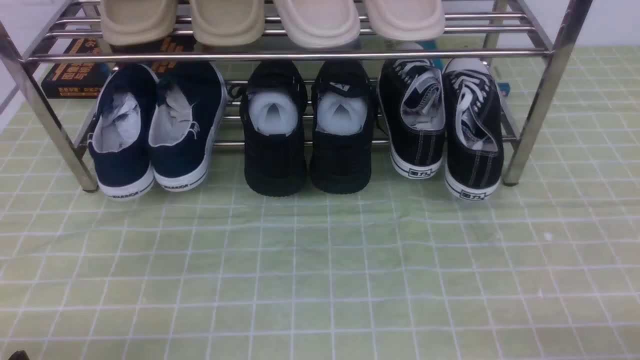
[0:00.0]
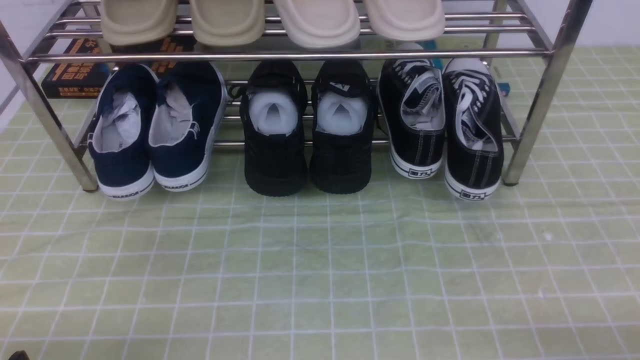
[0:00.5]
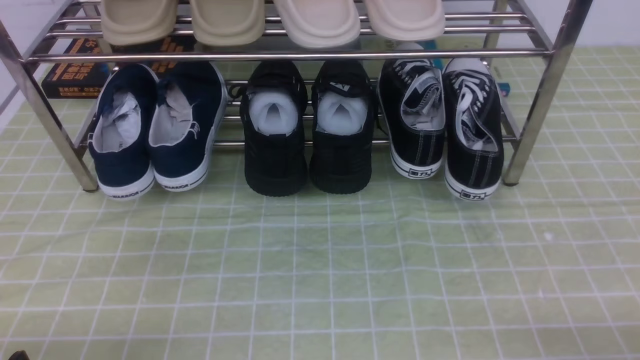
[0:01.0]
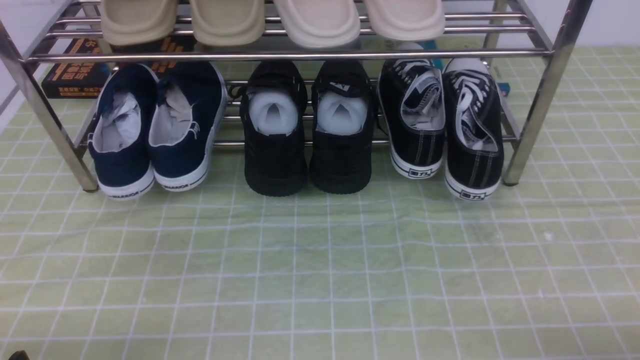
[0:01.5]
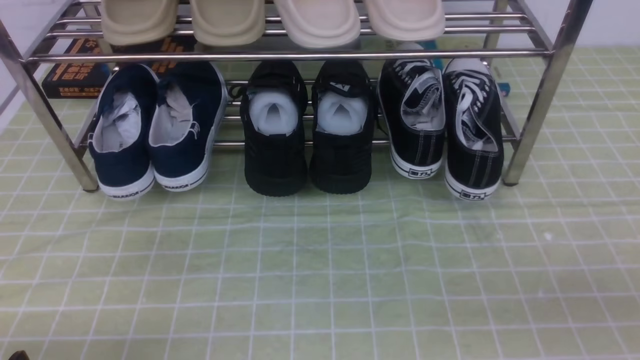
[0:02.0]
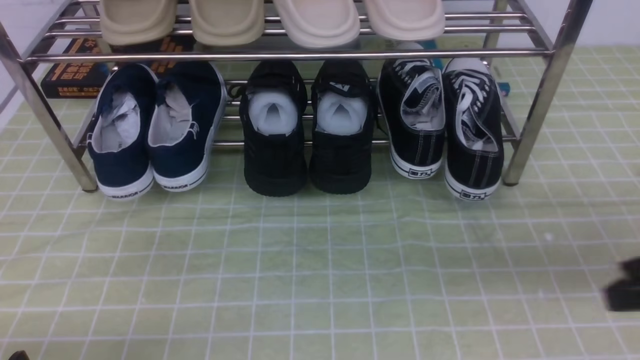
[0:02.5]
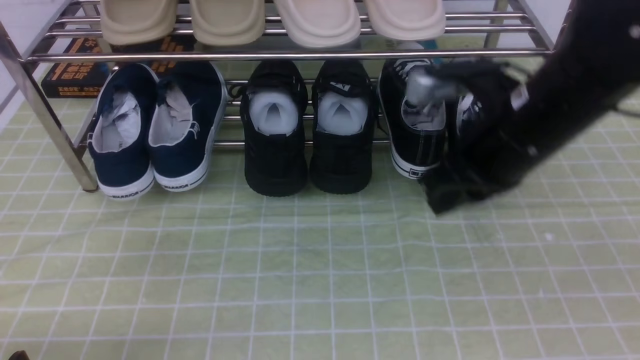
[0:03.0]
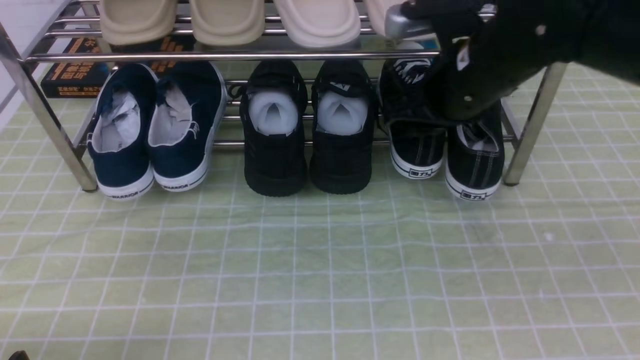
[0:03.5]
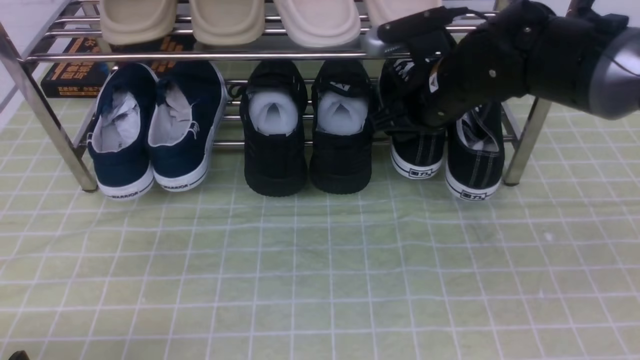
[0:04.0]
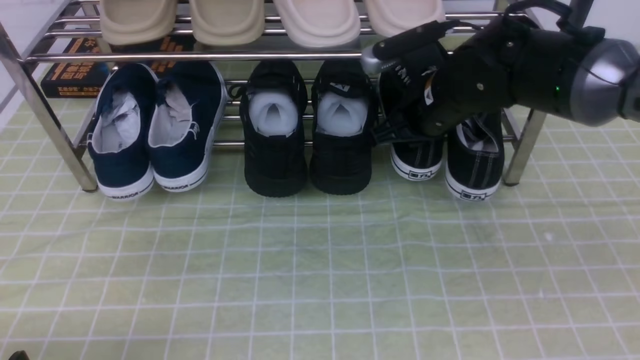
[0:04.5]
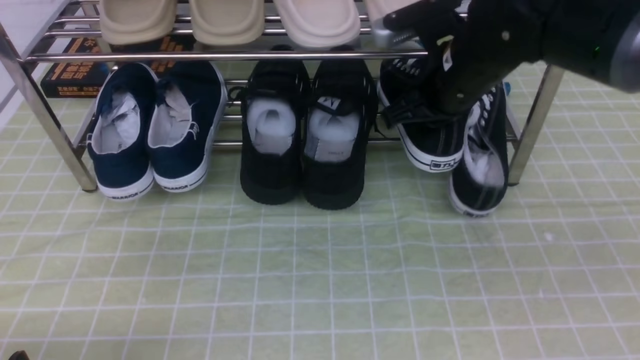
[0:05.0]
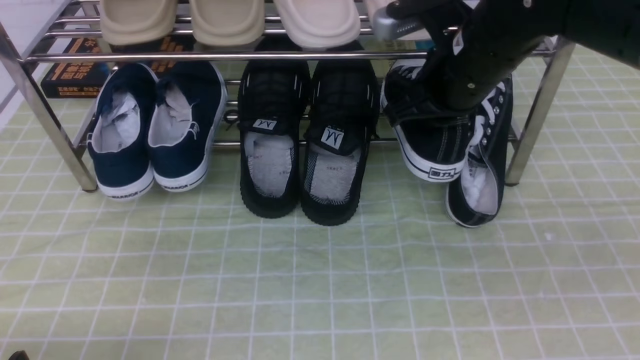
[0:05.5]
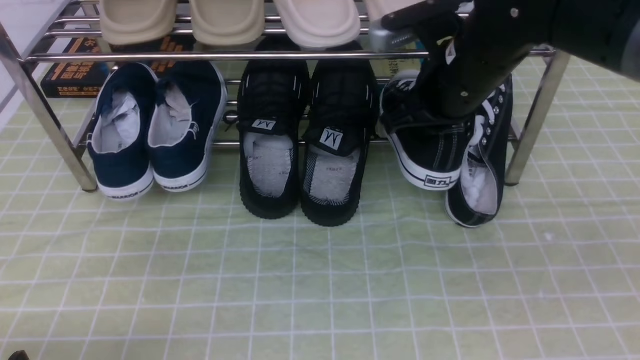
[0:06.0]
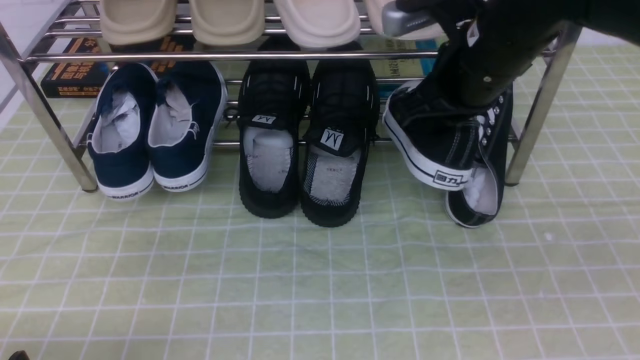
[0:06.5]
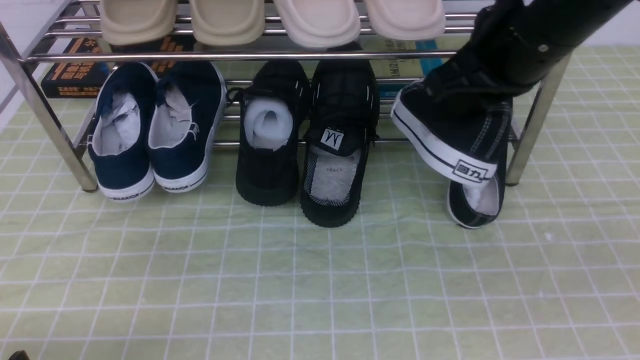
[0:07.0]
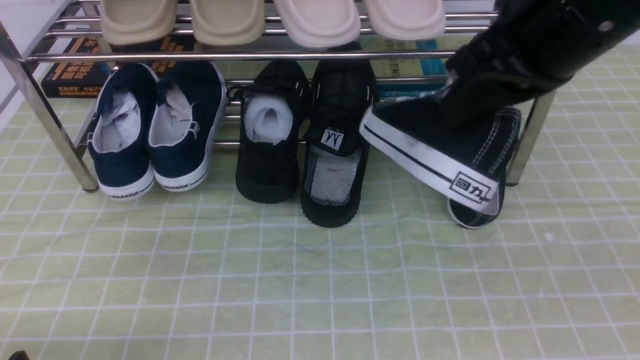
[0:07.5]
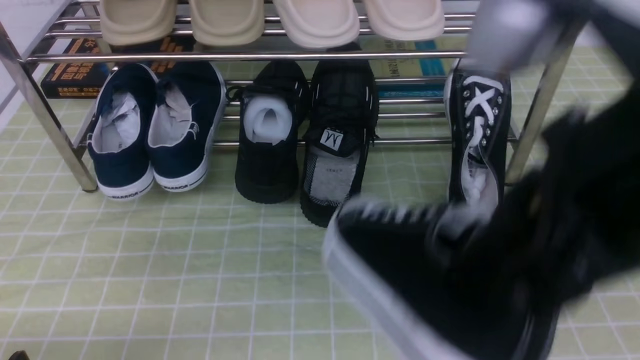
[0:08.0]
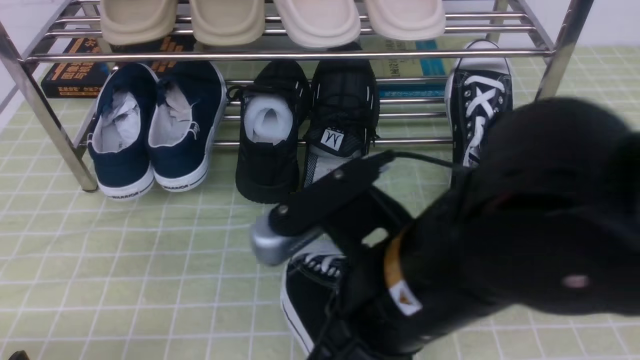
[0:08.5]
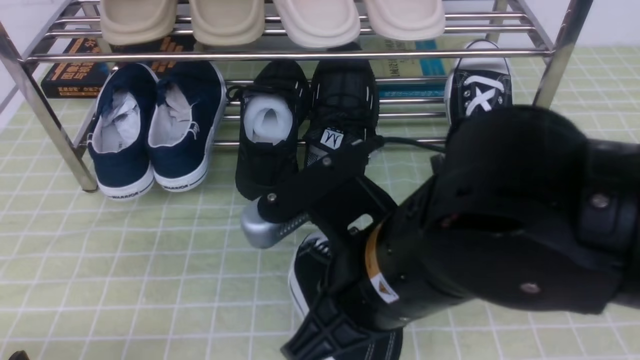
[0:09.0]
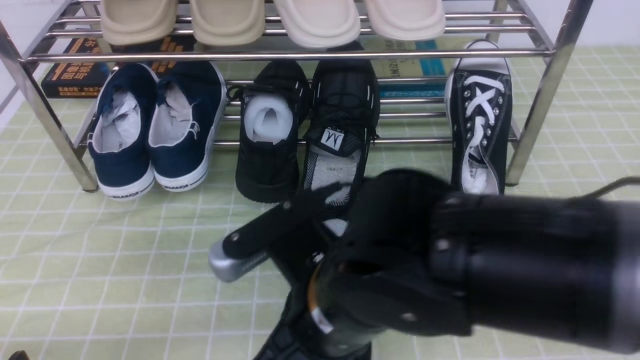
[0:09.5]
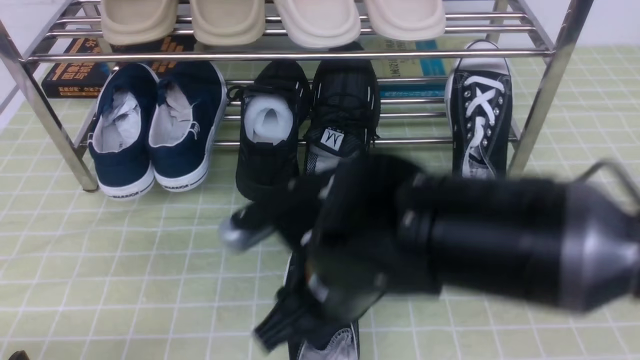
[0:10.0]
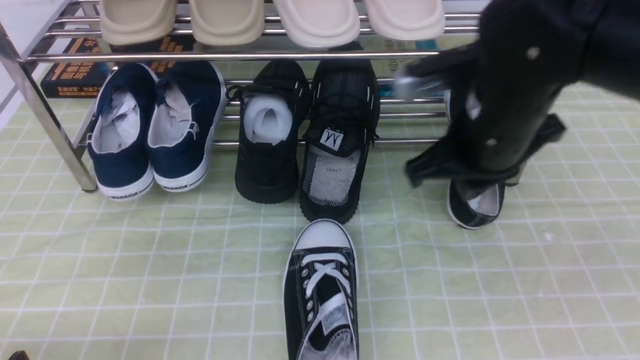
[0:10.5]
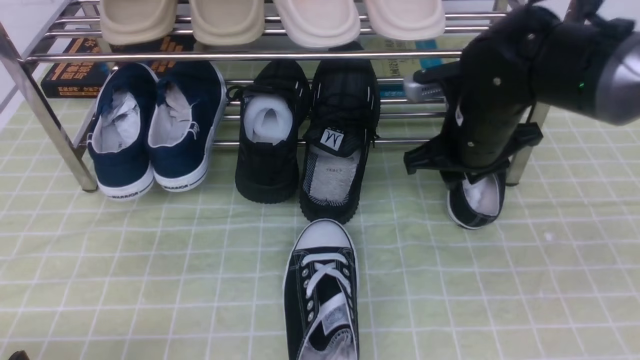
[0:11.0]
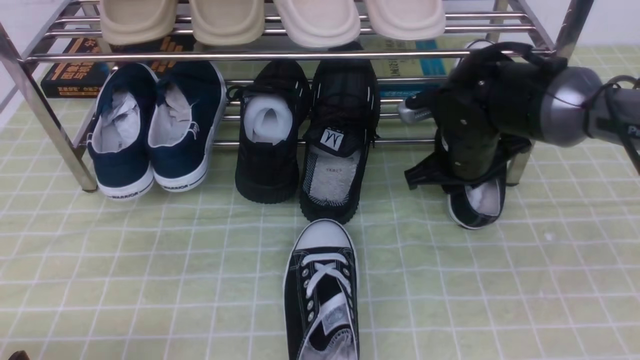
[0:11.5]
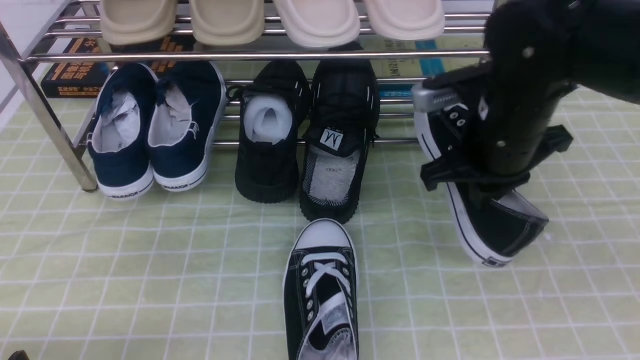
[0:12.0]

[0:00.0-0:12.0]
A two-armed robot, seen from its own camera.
Step, 0:00.0 to 0:04.5: use the right arm to clamp a shoe on the right side of the shoe rack.
Step, 0:05.0 to 0:10.0: use the right arm to take out the clamped shoe from the shoe rack and put it down.
Step, 0:10.5 to 0:11.5: use the right arm to clamp a shoe on the right side of the shoe rack.
0:00.0 to 0:02.0: The right gripper travels upward by approximately 10 cm, and closes.
0:02.0 to 0:04.0: The right gripper heads forward and to the left, covering about 35 cm, and opens its fingers.
0:04.0 to 0:06.0: The right gripper ends up roughly 5 cm from where it was, and closes up.
0:06.0 to 0:08.0: The right gripper moves backward, approximately 20 cm.
0:08.0 to 0:10.0: The right gripper moves downward, to the left and forward, approximately 20 cm, and opens.
0:10.0 to 0:12.0: The right gripper moves to the right and forward, about 15 cm, and closes.

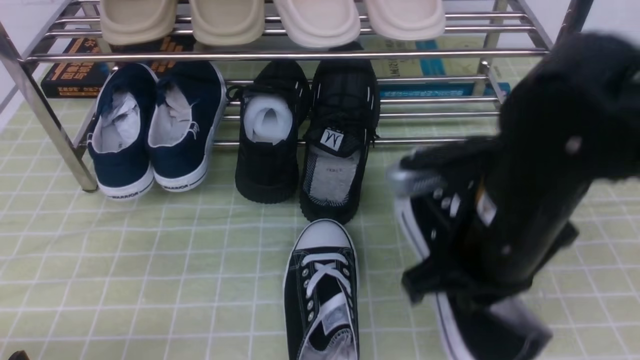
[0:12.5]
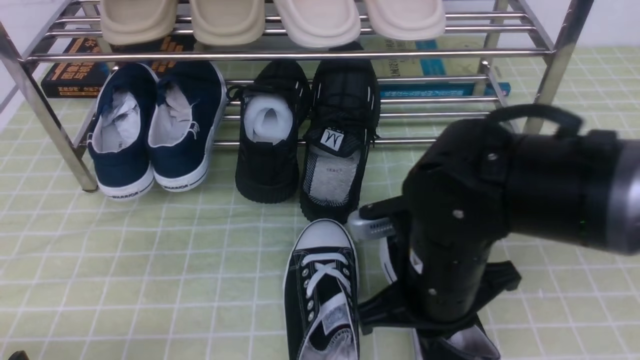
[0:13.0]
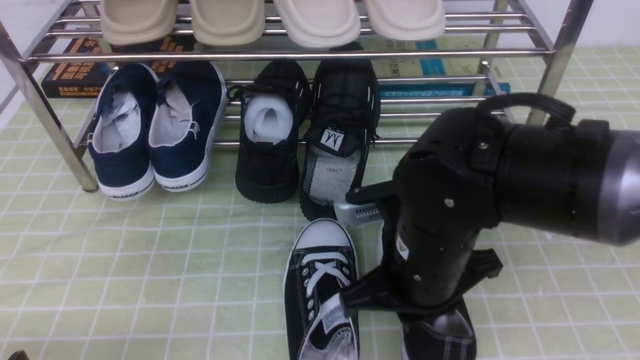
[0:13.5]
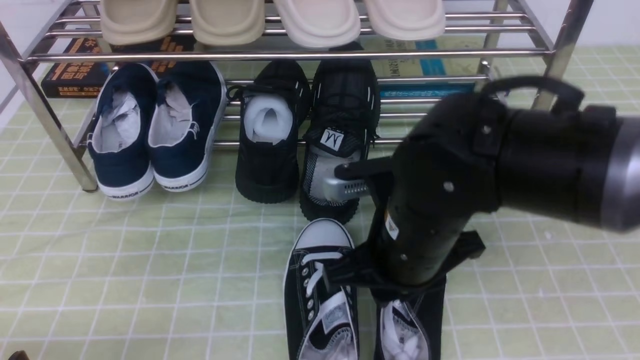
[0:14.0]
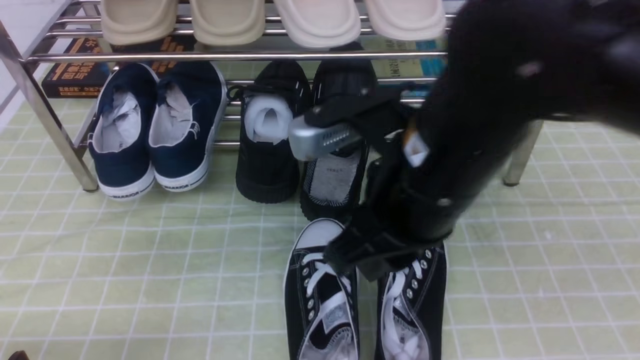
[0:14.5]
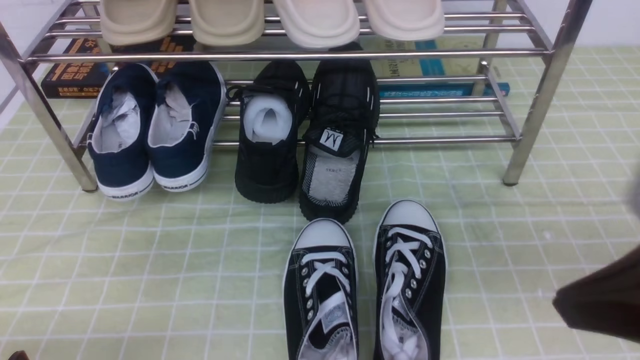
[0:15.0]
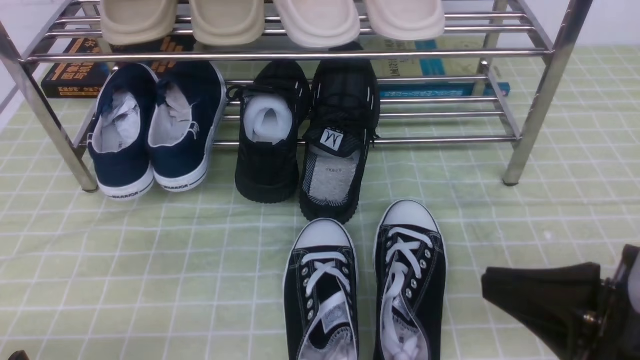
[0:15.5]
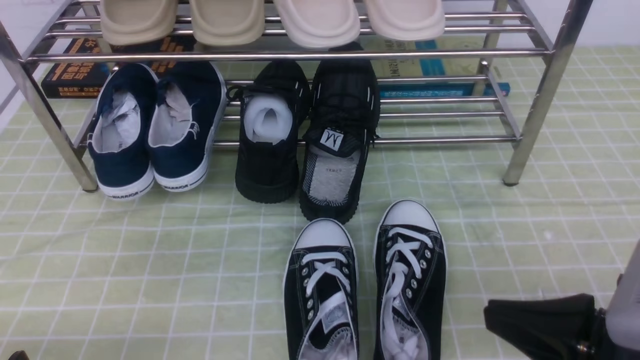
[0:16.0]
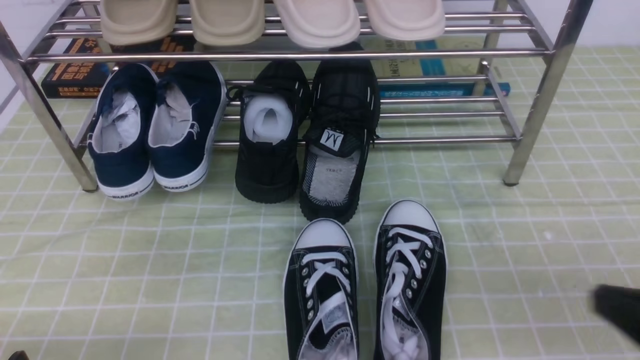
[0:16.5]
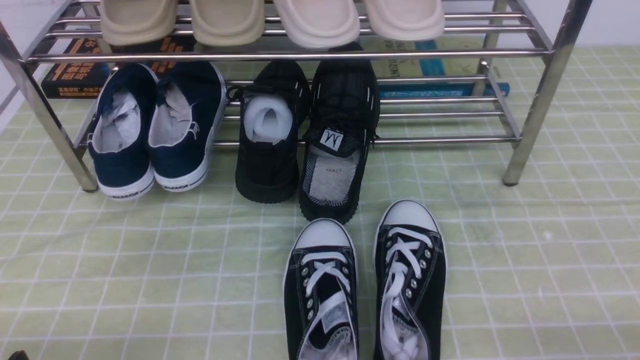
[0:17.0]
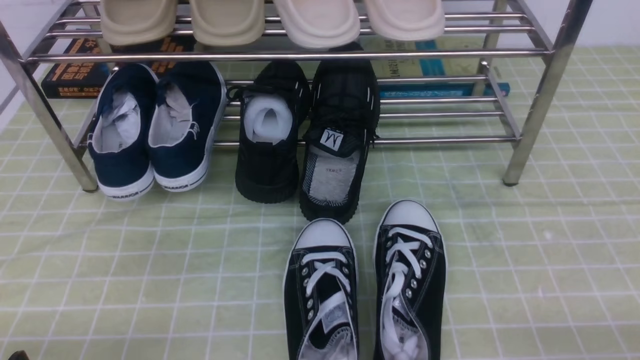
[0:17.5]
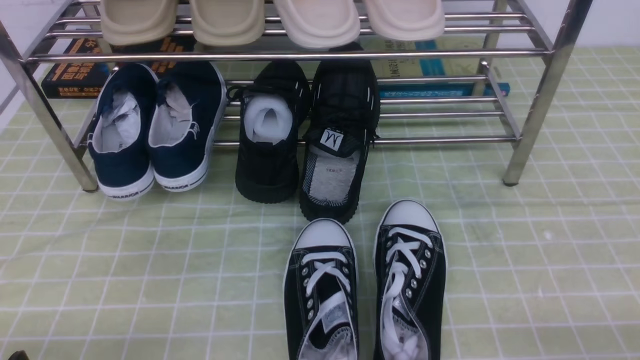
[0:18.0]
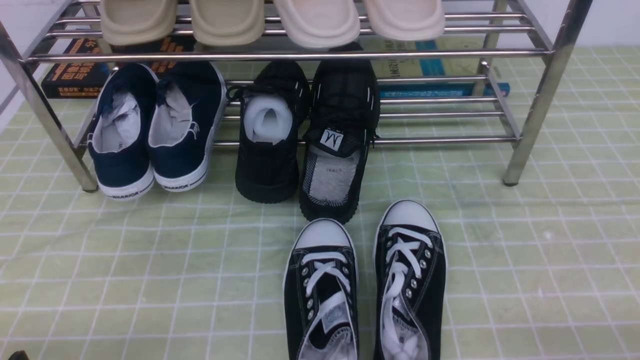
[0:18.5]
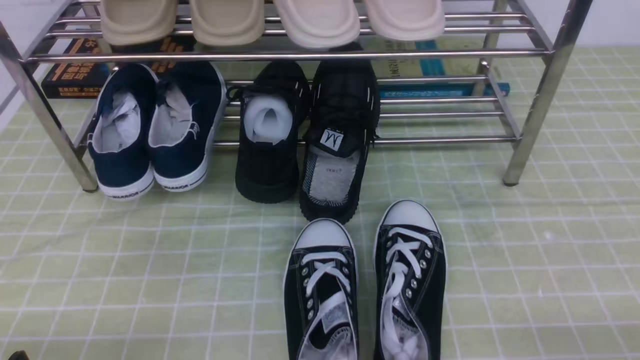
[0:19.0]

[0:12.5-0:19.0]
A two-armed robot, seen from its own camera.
Step, 0:12.5 to 0:14.5: use the right arm to take out the clamped shoe from the shoe rack and put it down.
0:12.5 to 0:14.5: The right gripper moves upward, about 5 cm, and opens its fingers.
0:14.5 to 0:17.0: The right gripper is displaced to the right, downward and backward by about 35 cm.
0:17.0 to 0:19.0: Both grippers stay about where they are.
